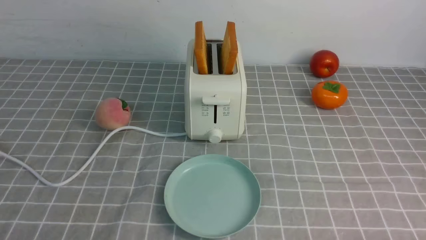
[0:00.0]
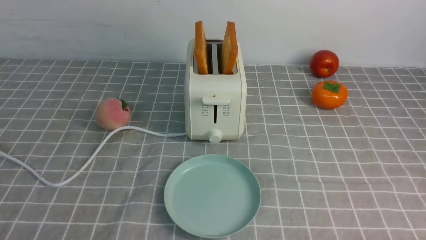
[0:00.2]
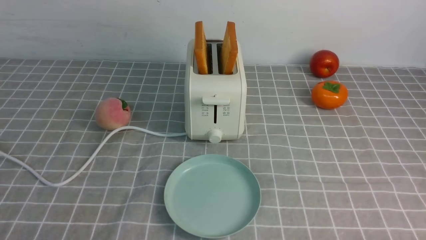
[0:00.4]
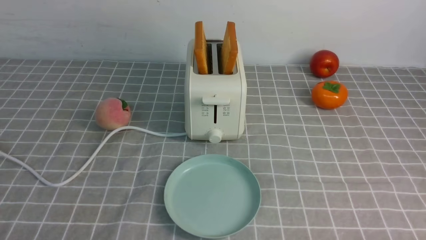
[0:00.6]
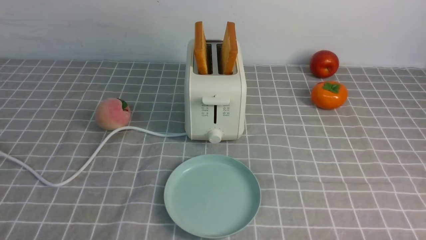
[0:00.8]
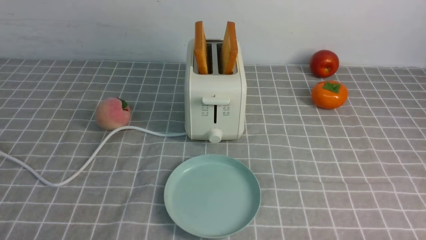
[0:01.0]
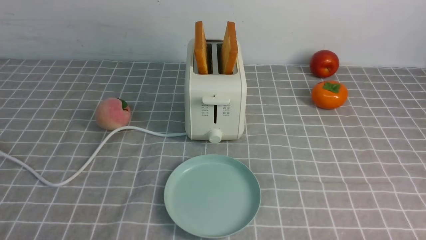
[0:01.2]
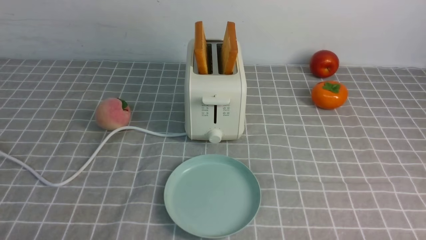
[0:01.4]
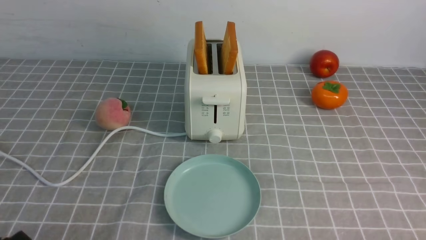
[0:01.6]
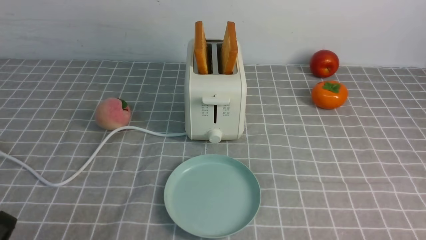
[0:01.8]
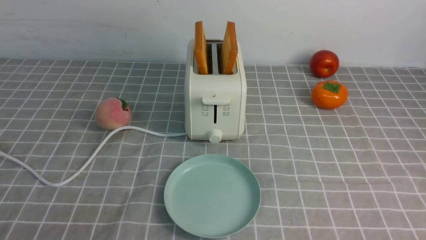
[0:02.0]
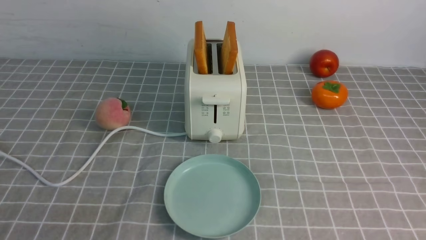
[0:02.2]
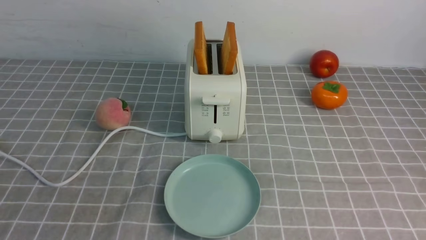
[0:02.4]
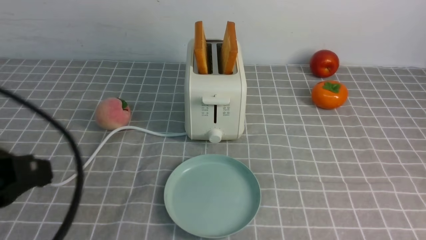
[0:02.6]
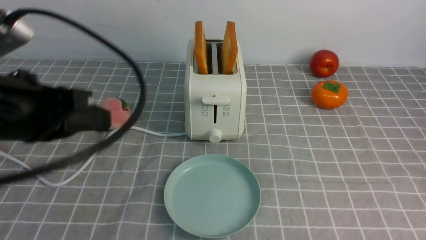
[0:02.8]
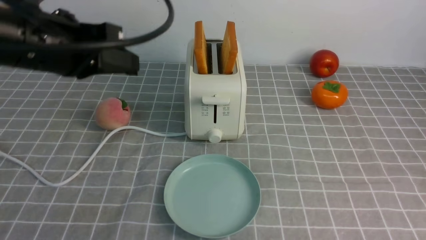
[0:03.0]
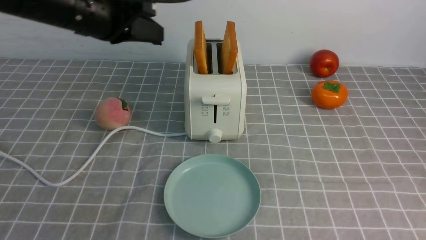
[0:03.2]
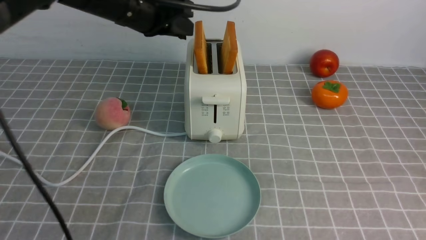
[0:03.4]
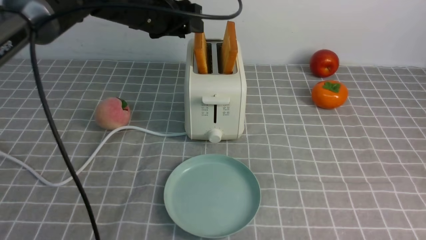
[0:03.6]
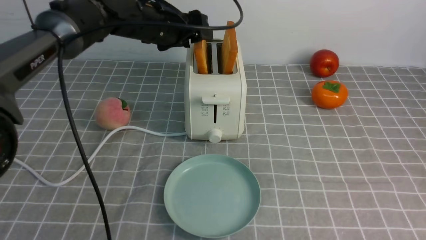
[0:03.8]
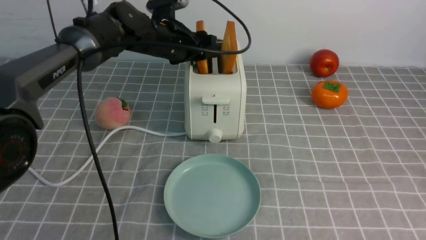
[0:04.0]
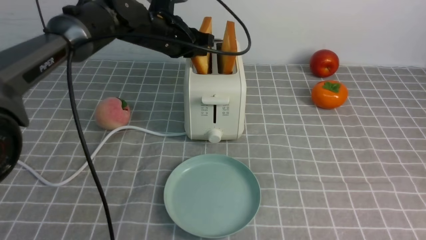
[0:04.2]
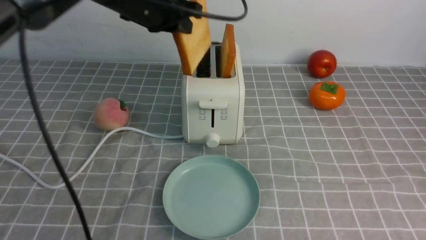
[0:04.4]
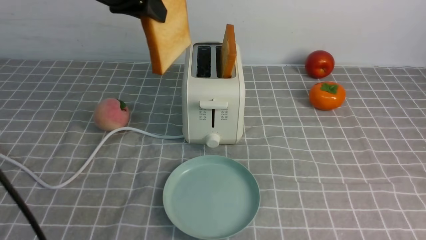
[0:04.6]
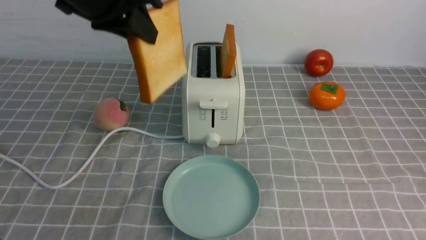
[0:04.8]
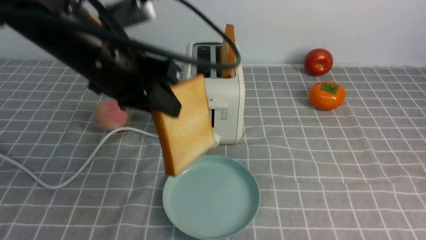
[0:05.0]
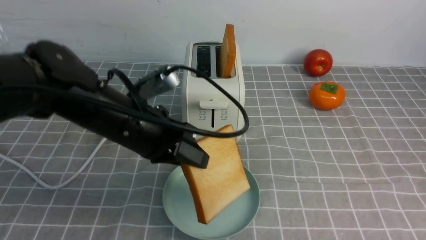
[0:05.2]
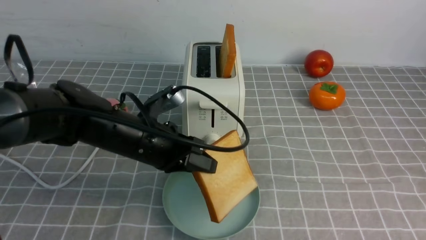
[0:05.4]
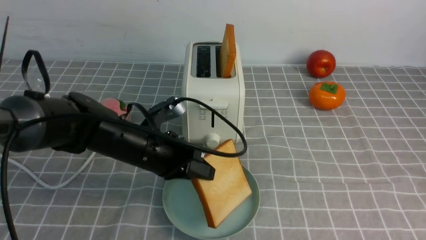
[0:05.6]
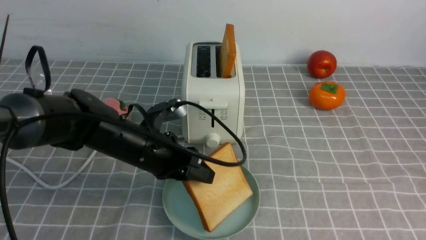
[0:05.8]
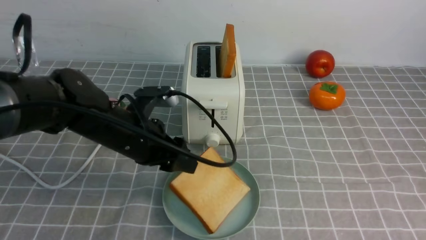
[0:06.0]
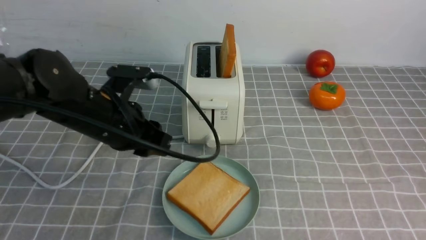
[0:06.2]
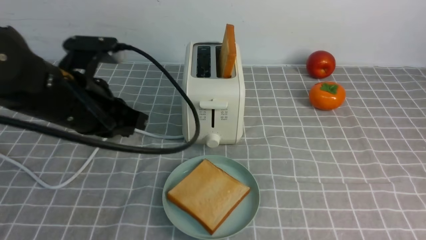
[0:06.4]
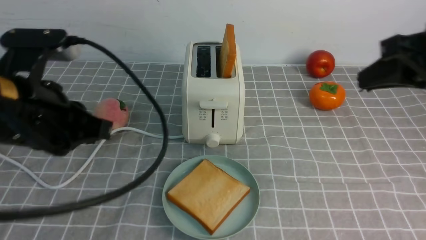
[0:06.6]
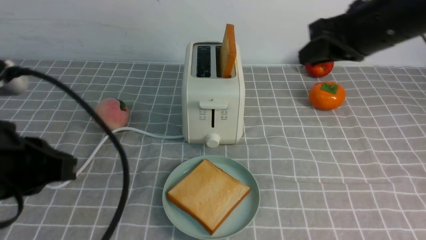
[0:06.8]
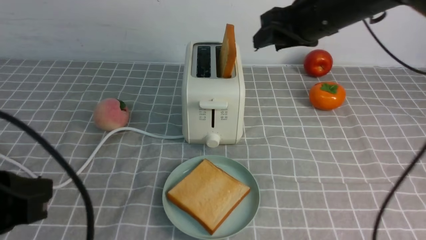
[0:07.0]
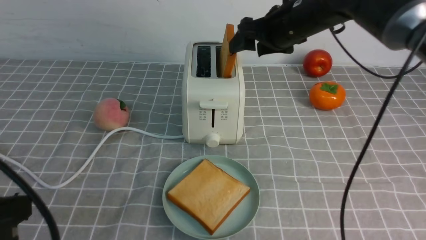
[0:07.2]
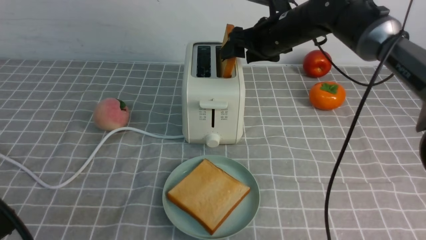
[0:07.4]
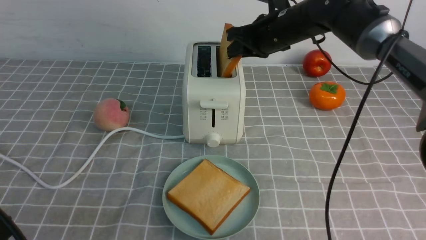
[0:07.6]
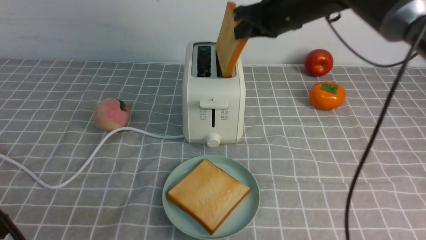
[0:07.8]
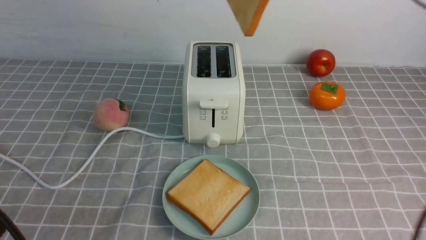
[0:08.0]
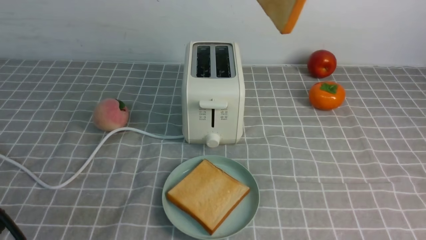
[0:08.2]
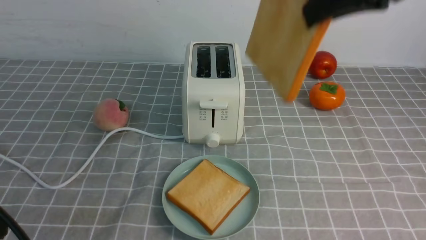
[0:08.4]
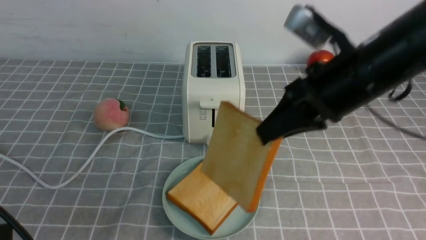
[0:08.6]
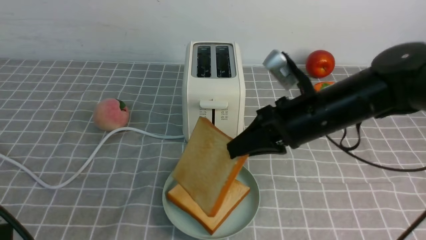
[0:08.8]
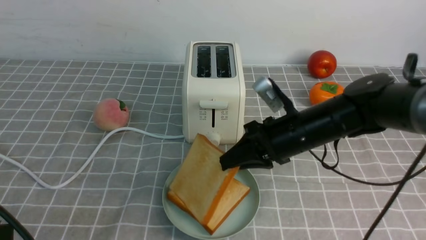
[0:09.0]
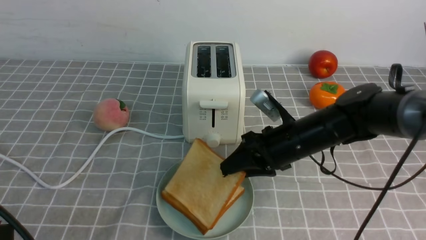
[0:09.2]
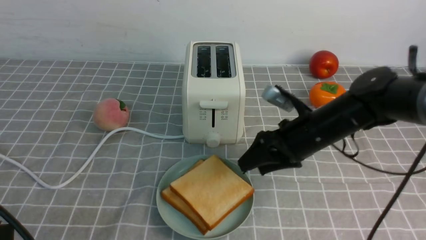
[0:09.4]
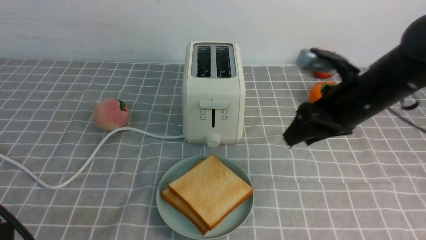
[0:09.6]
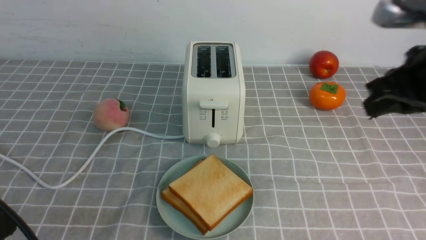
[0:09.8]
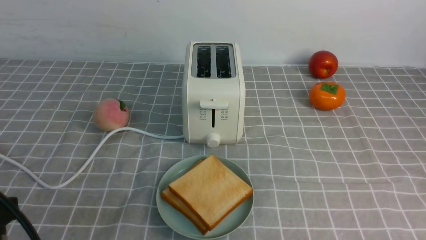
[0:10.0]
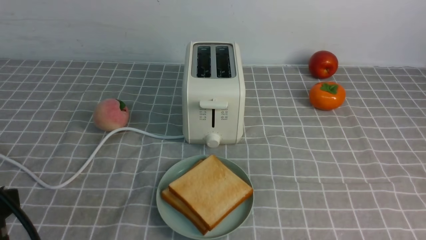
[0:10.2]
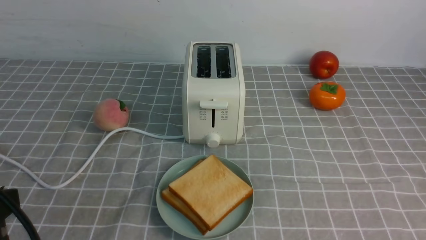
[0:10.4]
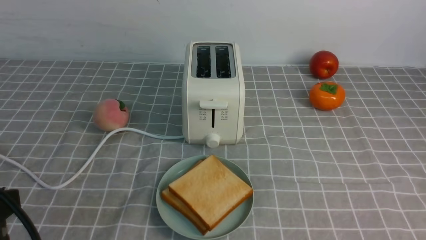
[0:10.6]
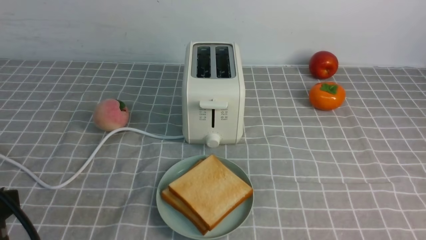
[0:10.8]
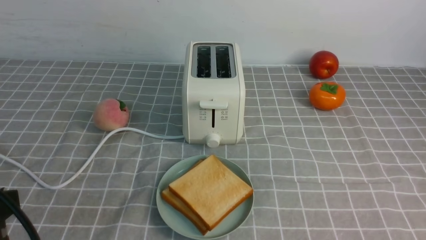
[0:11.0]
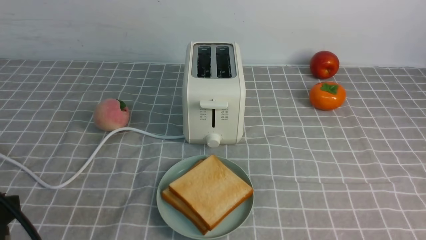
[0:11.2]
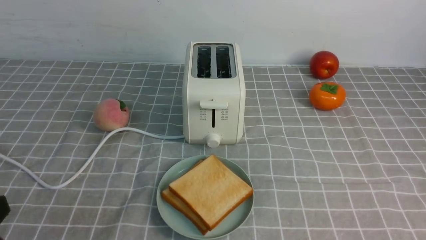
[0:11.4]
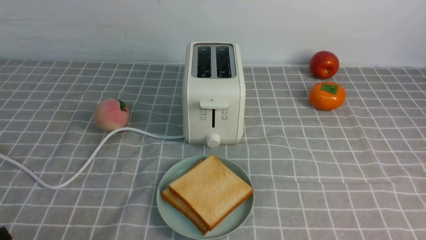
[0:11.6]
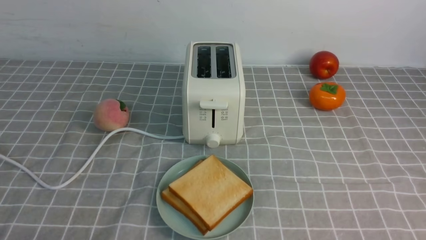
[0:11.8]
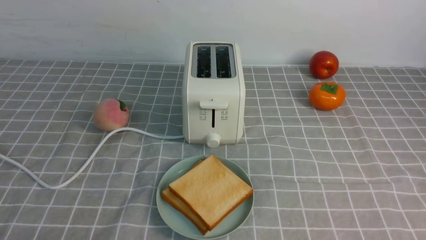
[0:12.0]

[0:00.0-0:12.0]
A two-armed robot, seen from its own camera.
Task of the whole recording: take toasted bread from bread machine on grey coffee table place on plate.
Step, 0:00.0 to 0:04.6: use the left arm to take out a slice of bread.
Step, 0:04.8 to 0:06.2: use the left arm to put a slice of bread into the empty plate.
Step, 0:06.4 to 0:07.8: use the right arm to take out a slice of bread.
Step, 0:08.2 to 0:09.4: use the right arm to put a slice of bread into the plate.
0:01.6 to 0:03.0: The left gripper is displaced upward and forward by about 30 cm, and closes its fingers.
0:03.0 to 0:04.4: The left gripper goes some 20 cm forward and to the right, and opens, then closes again.
0:04.4 to 0:06.0: The left gripper moves downward and backward, some 20 cm, and opens.
0:06.0 to 0:07.6: The right gripper is displaced forward and to the left by some 40 cm, and opens. Meanwhile the left gripper is displaced backward, to the left and upward by some 30 cm, and closes.
0:07.6 to 0:09.0: The right gripper is displaced backward by about 15 cm, moves some 20 cm upward and comes back, and closes.
0:09.0 to 0:10.4: The right gripper is displaced backward and to the right by approximately 35 cm, and opens and closes again.
0:10.4 to 0:12.0: The left gripper shifts about 15 cm downward.

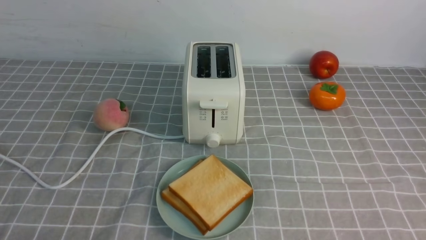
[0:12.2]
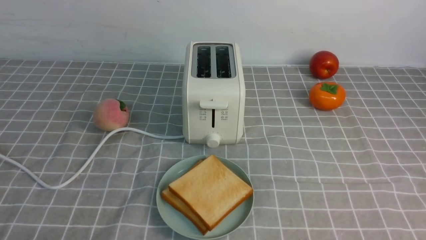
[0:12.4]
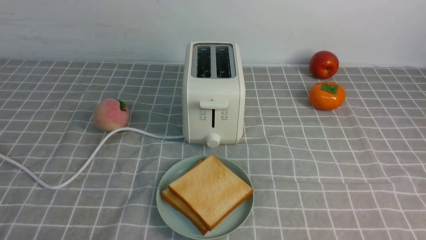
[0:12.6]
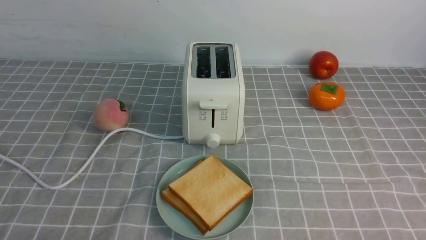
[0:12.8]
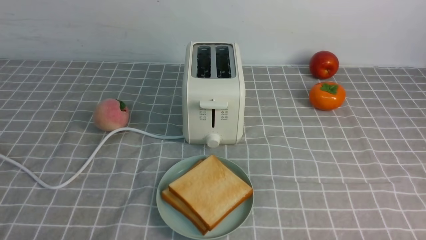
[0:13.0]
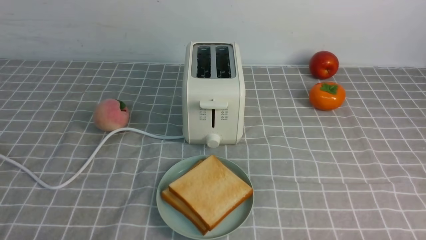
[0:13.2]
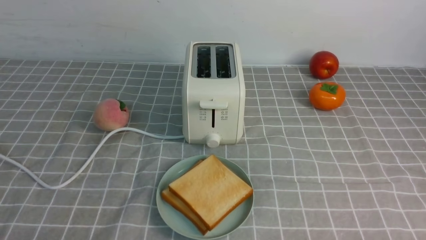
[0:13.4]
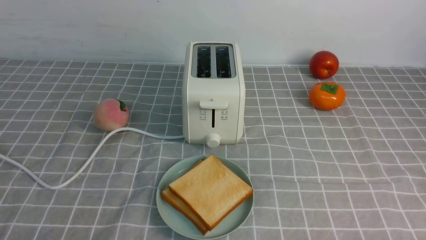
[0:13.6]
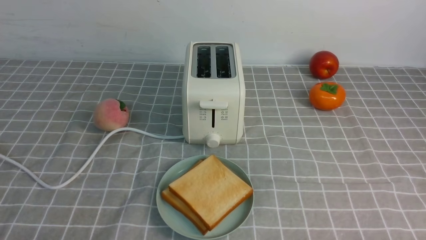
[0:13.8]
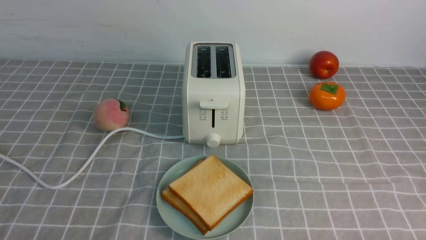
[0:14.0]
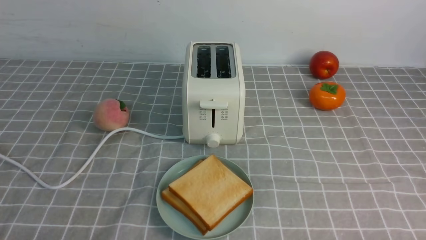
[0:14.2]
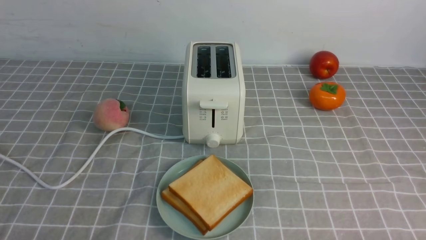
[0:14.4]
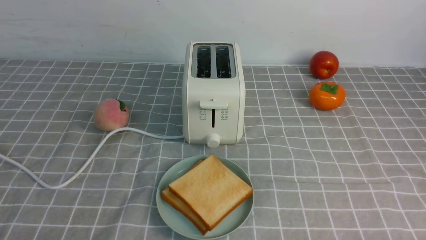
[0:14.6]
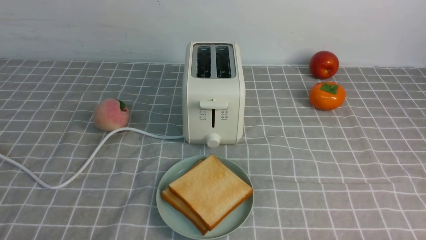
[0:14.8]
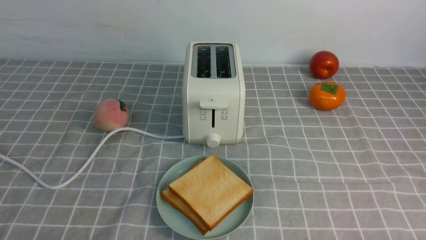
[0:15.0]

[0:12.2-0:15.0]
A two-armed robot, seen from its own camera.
Task of the whole recording: take toasted bread from bread machine on grey coffee table place on plate.
0:13.6 to 0:15.0: Neither gripper changes place.
